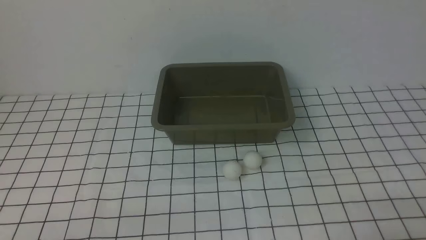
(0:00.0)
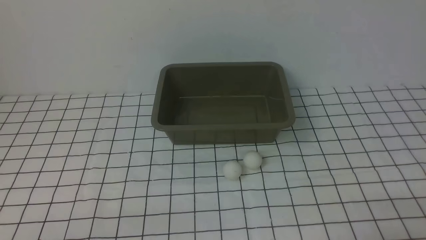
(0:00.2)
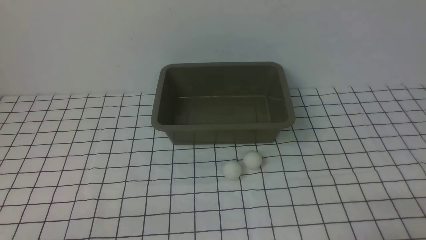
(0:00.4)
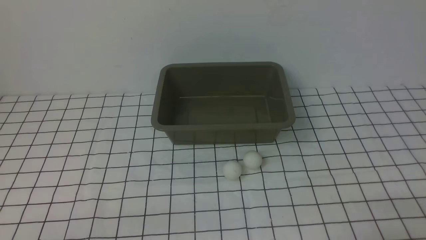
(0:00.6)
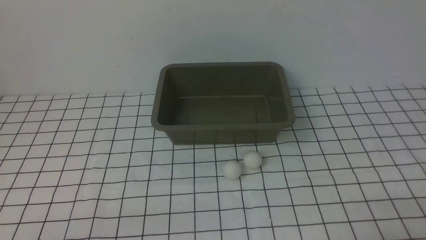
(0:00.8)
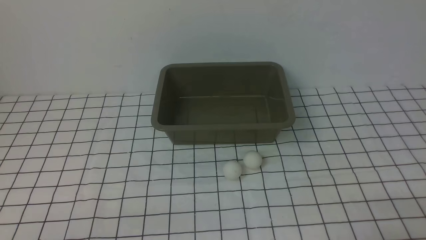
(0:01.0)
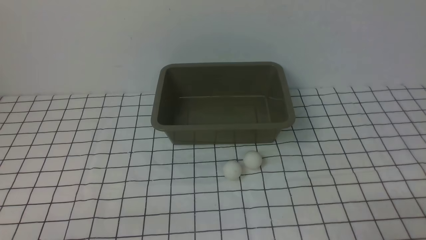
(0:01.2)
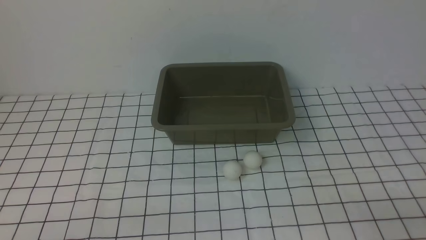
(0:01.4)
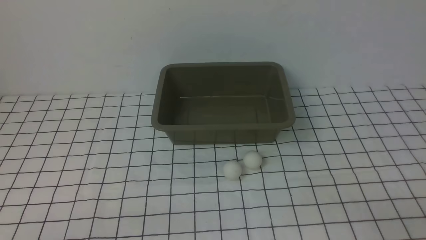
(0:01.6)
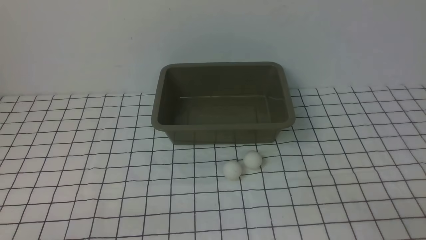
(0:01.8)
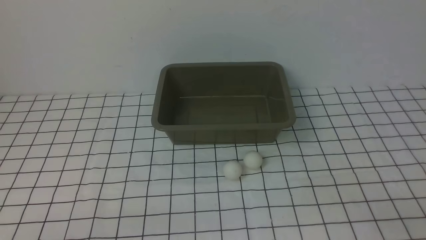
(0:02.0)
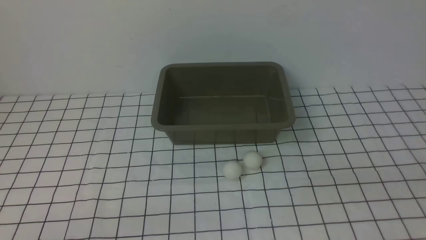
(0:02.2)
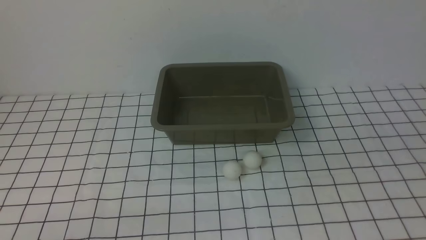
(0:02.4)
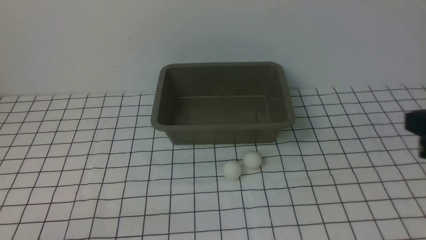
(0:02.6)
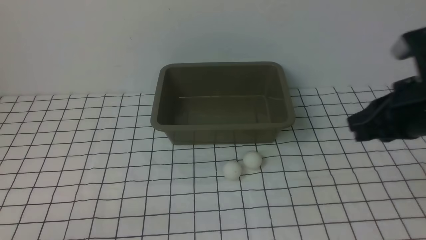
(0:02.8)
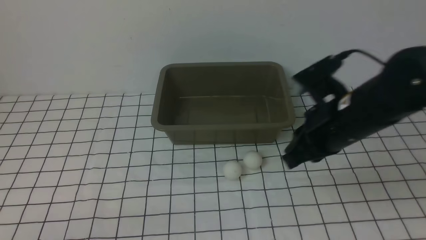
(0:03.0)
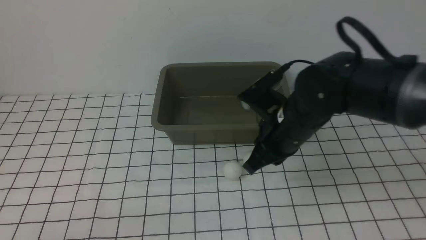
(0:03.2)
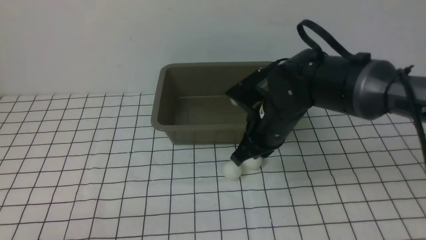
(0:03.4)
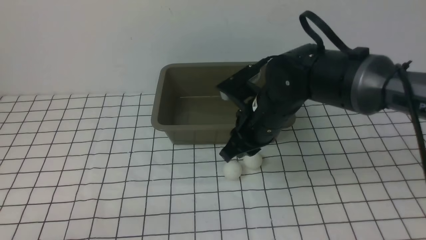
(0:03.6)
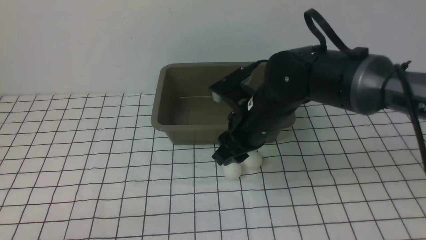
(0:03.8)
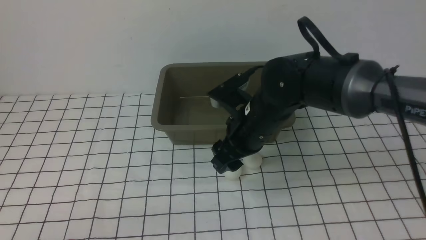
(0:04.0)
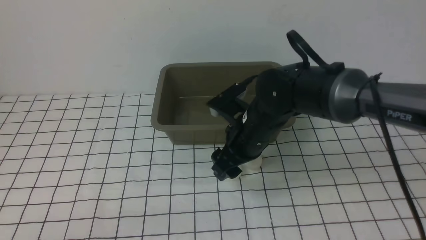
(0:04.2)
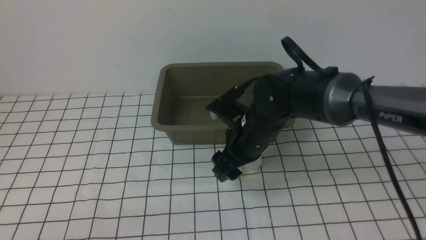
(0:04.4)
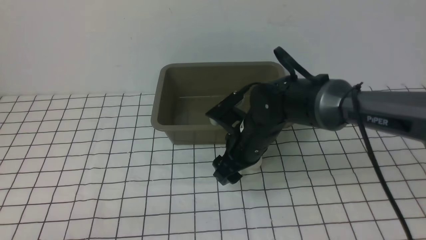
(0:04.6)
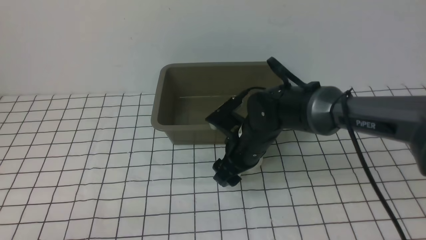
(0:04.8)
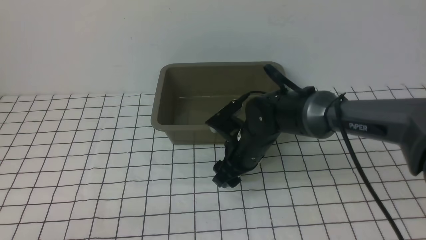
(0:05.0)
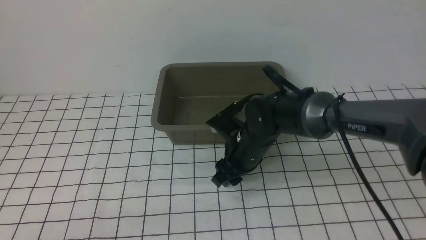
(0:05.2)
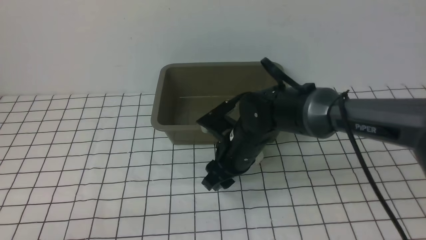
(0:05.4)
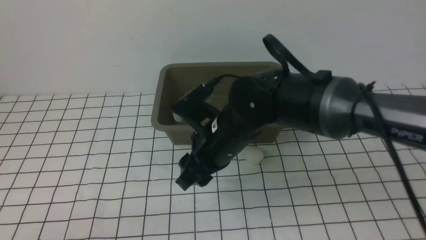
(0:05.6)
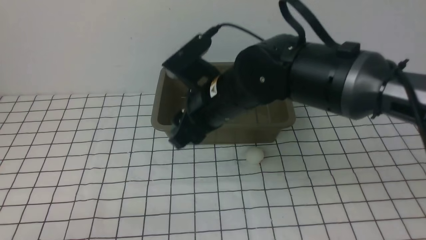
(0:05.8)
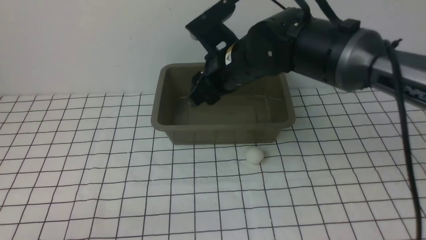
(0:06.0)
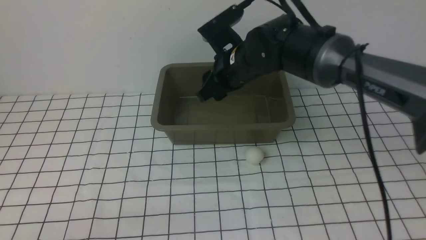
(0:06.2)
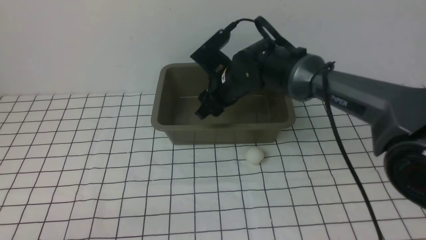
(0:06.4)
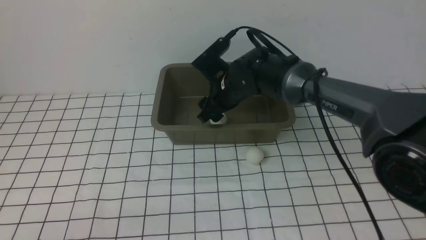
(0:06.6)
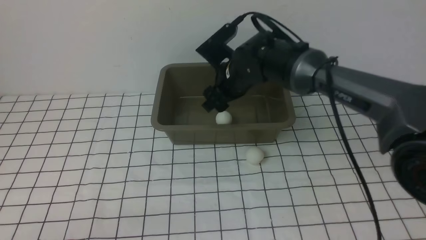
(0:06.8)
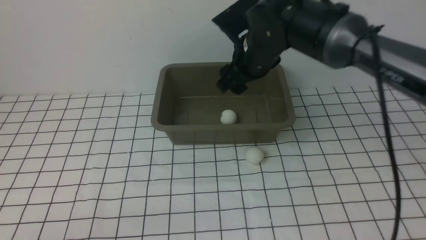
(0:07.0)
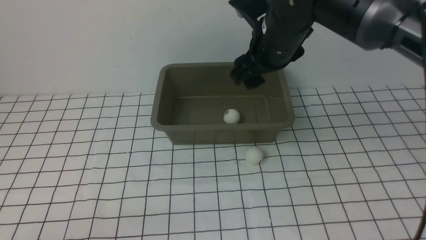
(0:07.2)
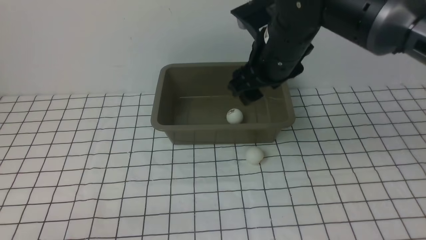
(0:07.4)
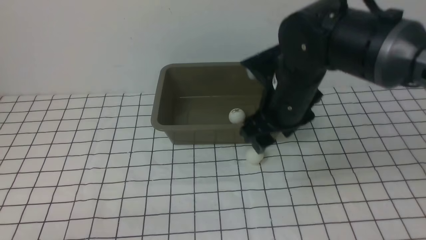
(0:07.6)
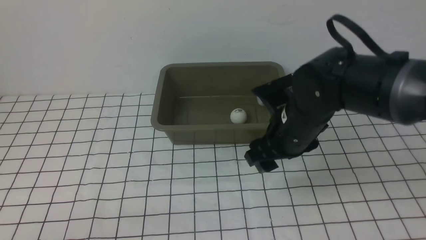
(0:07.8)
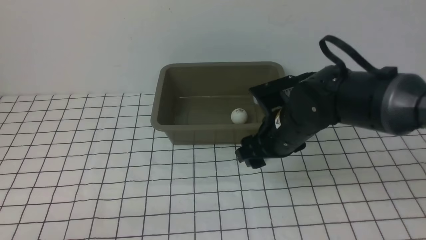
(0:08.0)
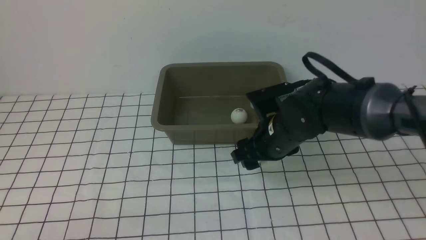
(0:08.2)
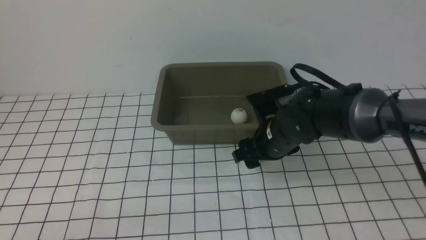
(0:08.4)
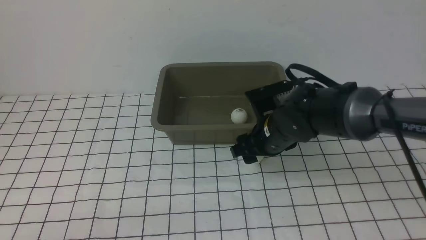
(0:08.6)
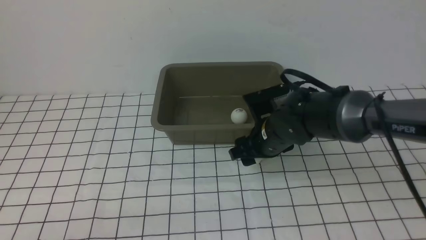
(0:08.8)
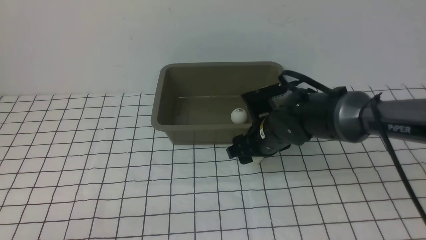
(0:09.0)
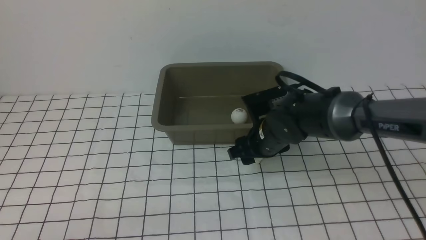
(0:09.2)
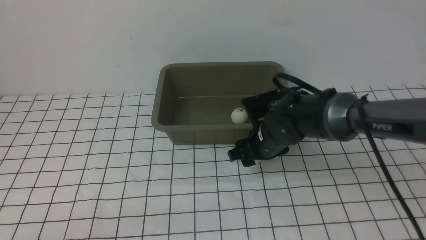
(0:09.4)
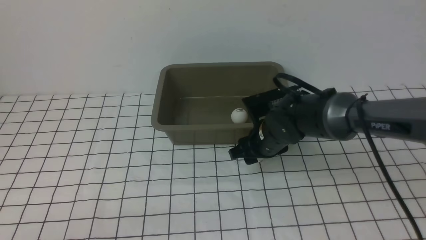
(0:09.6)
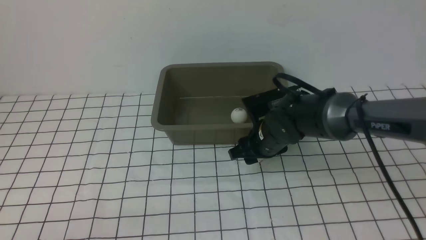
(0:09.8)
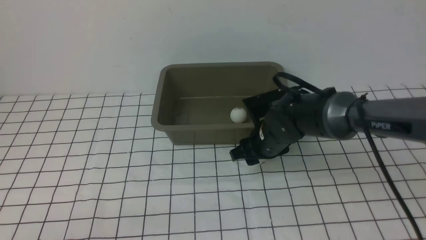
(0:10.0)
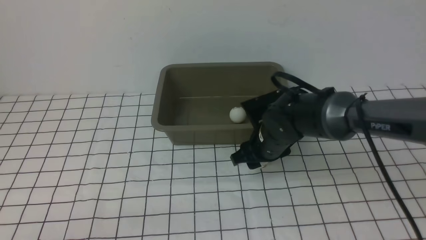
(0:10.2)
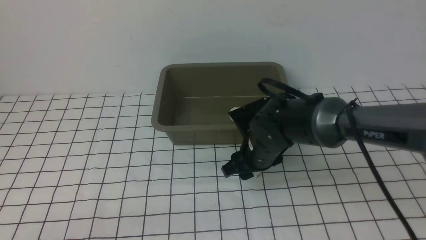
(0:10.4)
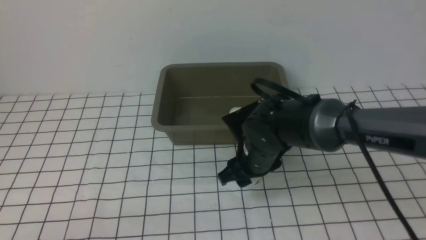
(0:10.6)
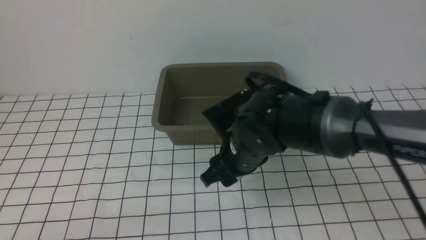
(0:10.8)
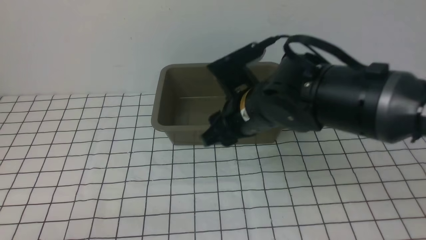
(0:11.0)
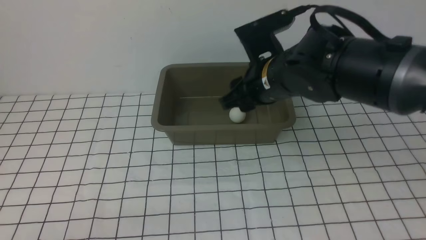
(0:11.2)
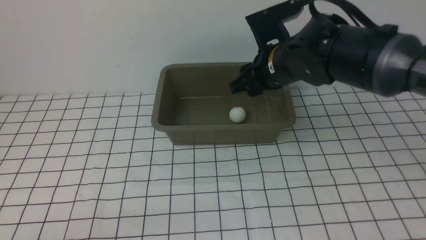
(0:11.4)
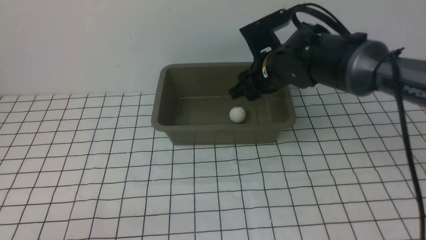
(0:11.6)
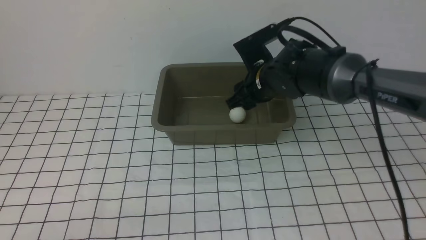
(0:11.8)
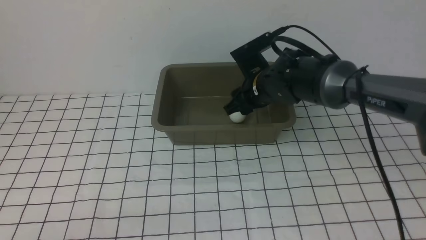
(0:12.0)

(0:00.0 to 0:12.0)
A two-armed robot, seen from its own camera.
Step, 0:00.0 - 0:05.4: use the right arm to clamp the table tennis ball closest to it.
Step, 0:05.6 - 0:06.8: use the right arm to put the table tennis ball into the box.
Step, 0:07.0 - 0:10.8: use the right arm to clamp the table tennis ball closest to it.
0:01.6 - 0:03.0: The right gripper travels forward and to the left by about 25 cm.
0:03.0 - 0:04.4: The right gripper goes some 15 cm to the left, downward and forward, and opens.
0:04.4 - 0:06.0: The right gripper goes about 10 cm upward.
0:06.0 - 0:07.6: The right gripper moves up and down over some 10 cm, changing direction 2 times.
0:07.6 - 0:09.0: The right gripper heads downward, covering roughly 10 cm.
0:09.0 - 0:10.4: The grippers stay close to where they were, moving slightly.
0:10.4 - 0:12.0: The right gripper is displaced forward by approximately 10 cm.

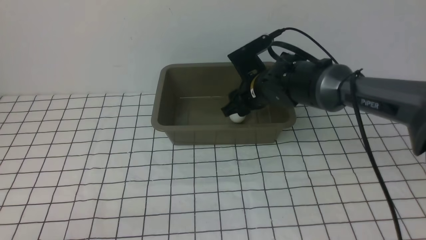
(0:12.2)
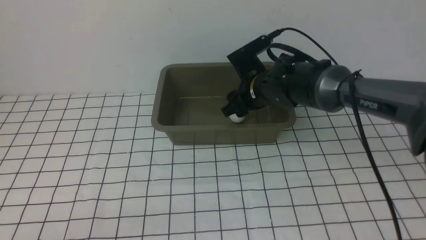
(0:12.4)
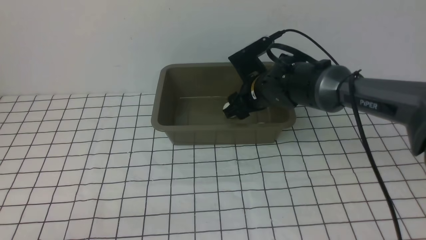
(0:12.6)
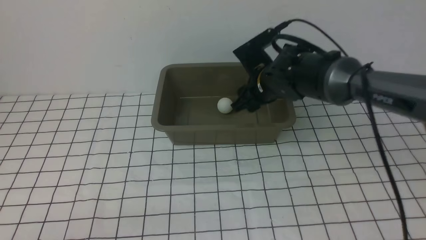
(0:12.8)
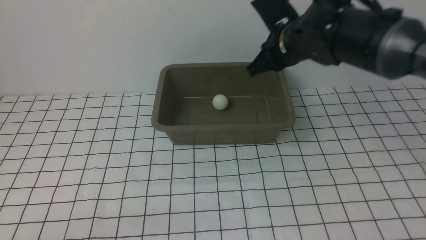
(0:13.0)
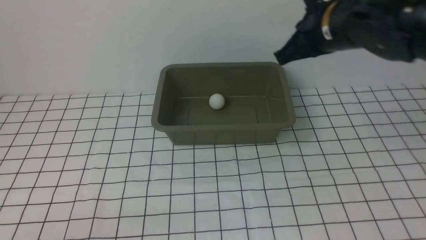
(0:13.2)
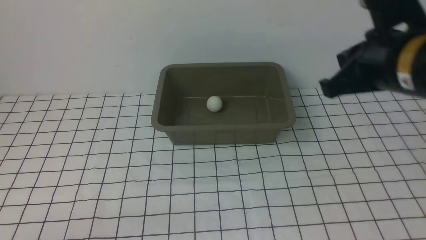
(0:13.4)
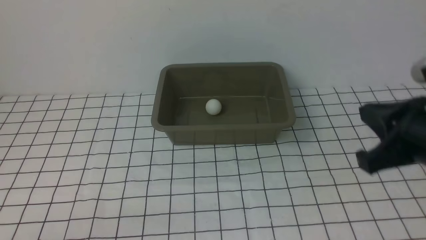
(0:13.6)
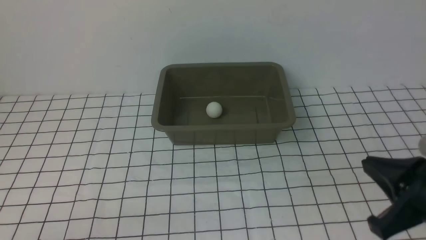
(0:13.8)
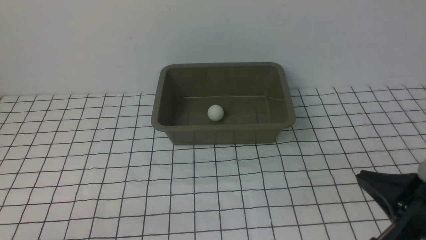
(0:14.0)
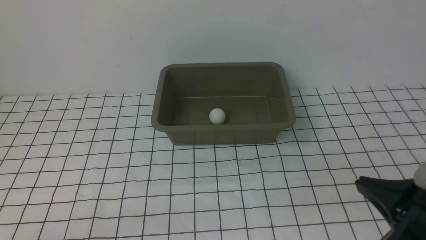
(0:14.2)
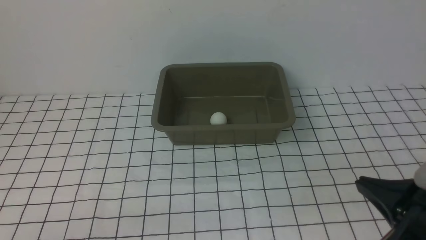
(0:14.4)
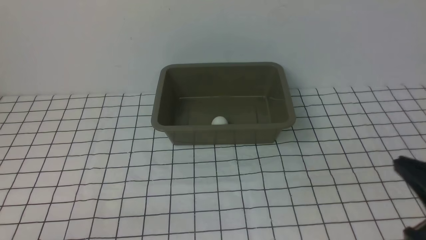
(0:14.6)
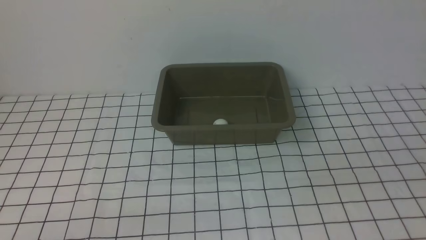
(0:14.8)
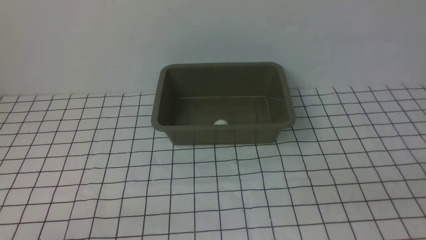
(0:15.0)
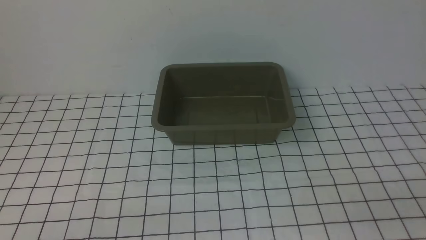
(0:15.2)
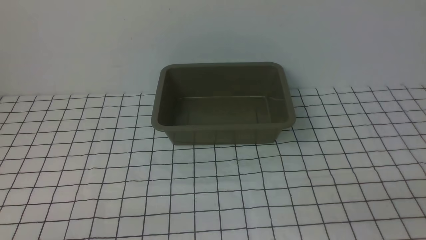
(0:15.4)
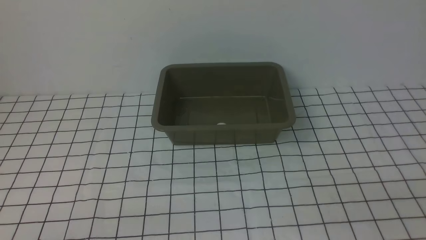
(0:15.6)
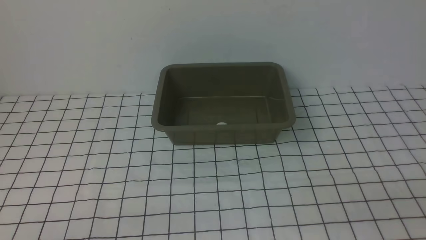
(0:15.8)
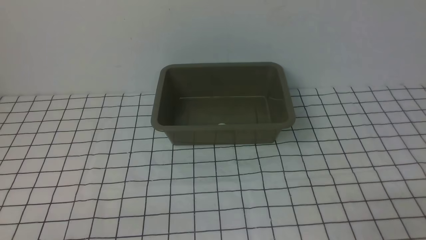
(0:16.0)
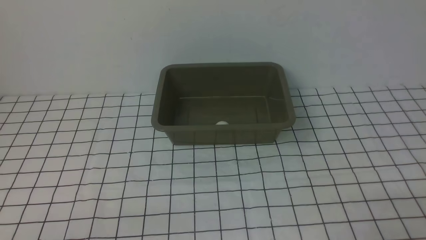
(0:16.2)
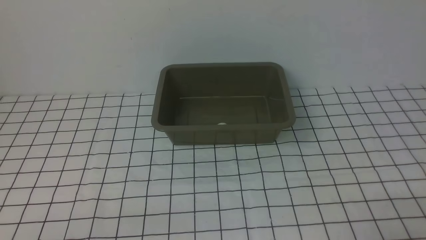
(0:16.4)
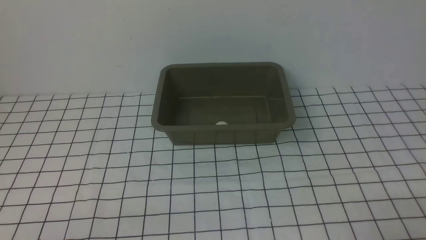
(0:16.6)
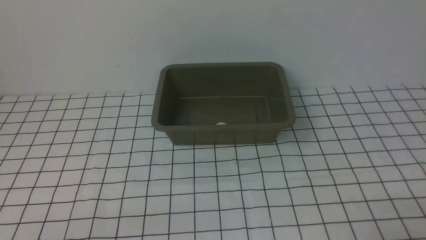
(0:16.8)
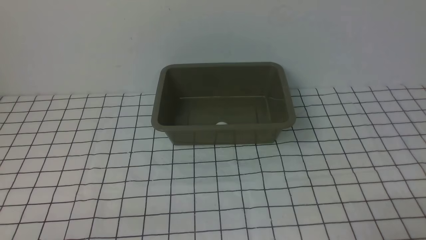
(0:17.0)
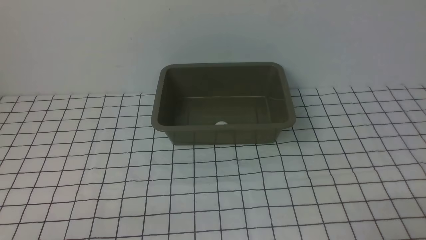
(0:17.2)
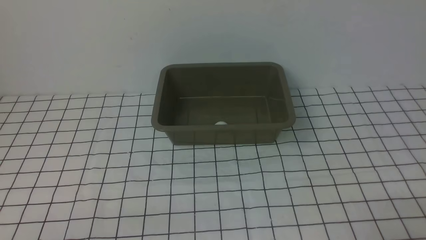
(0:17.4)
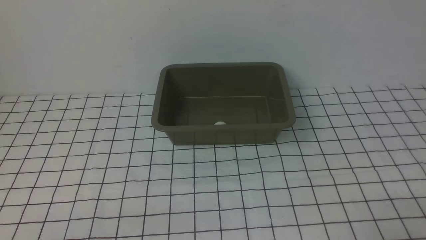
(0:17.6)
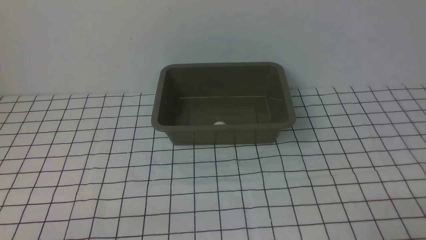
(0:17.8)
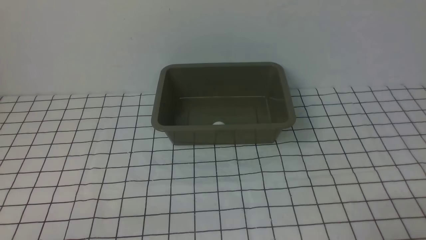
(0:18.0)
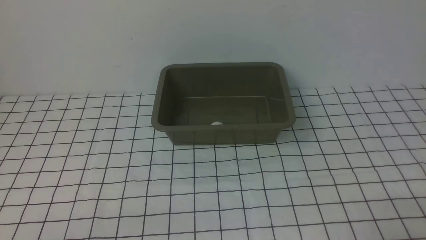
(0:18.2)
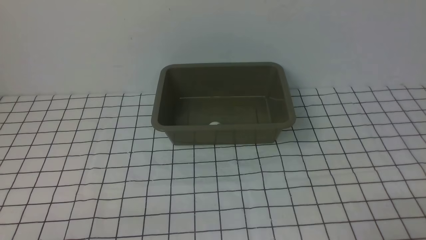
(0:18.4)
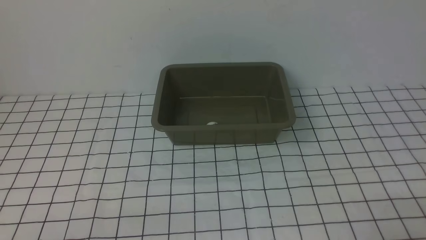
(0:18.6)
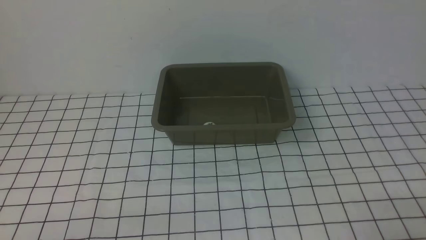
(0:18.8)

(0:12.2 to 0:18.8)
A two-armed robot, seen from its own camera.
0:12.2 - 0:13.8: The right gripper travels backward and to the right by roughly 35 cm, and closes.
0:13.8 - 0:15.4: The right gripper shifts roughly 10 cm backward, downward and to the right.
0:17.2 - 0:18.8: Both grippers stay about where they are.
